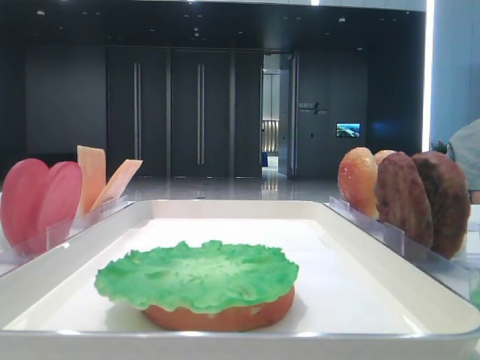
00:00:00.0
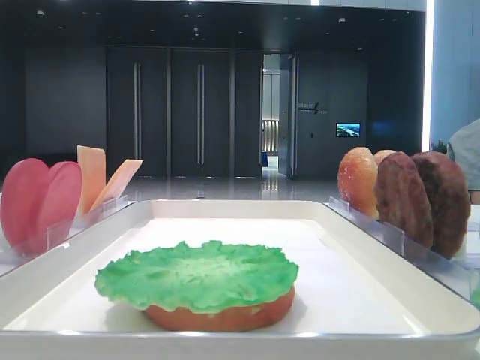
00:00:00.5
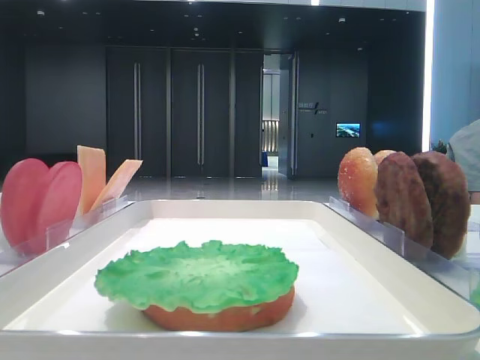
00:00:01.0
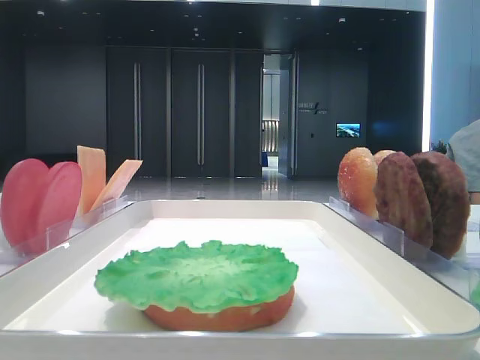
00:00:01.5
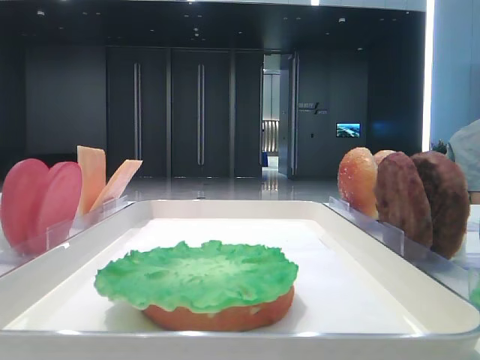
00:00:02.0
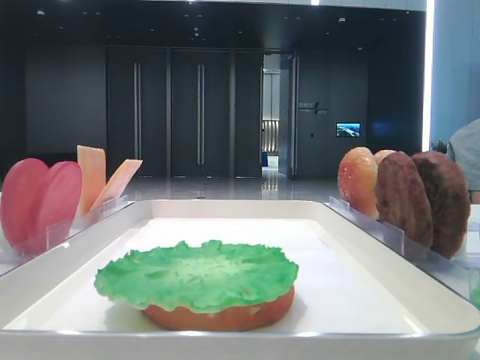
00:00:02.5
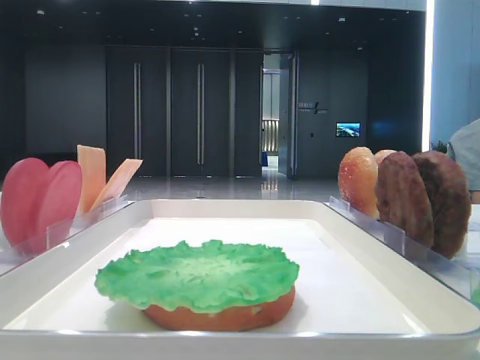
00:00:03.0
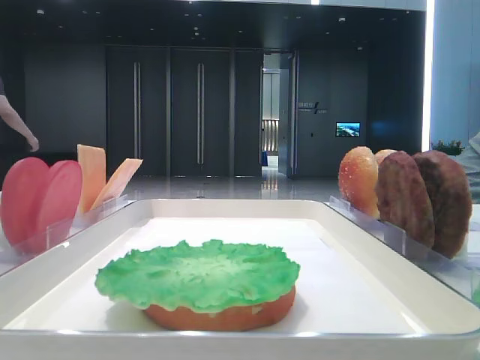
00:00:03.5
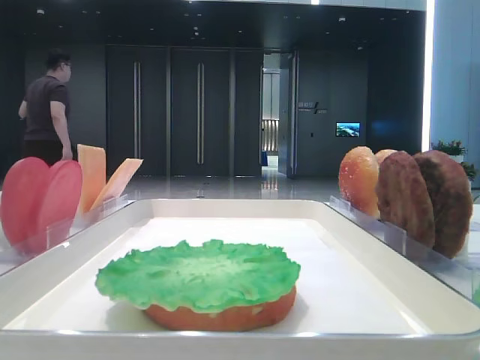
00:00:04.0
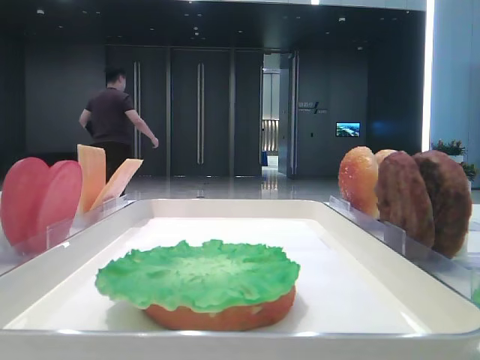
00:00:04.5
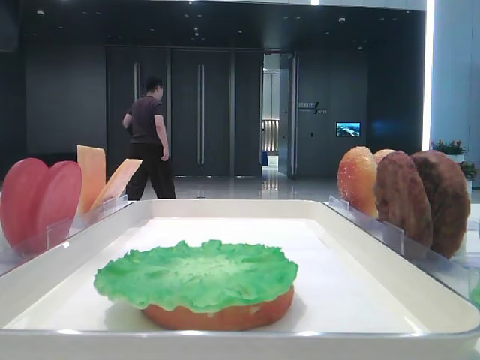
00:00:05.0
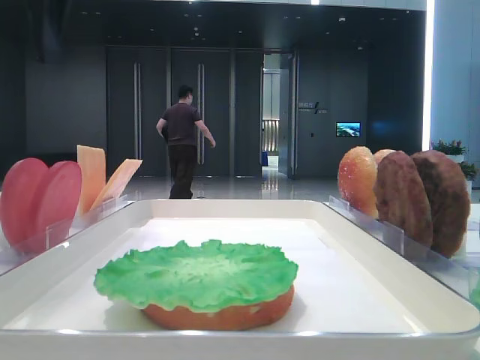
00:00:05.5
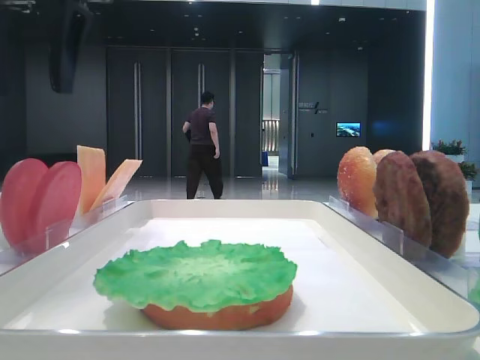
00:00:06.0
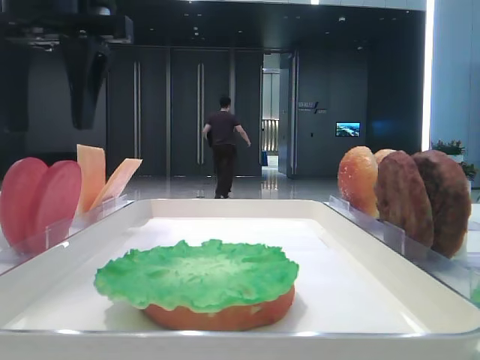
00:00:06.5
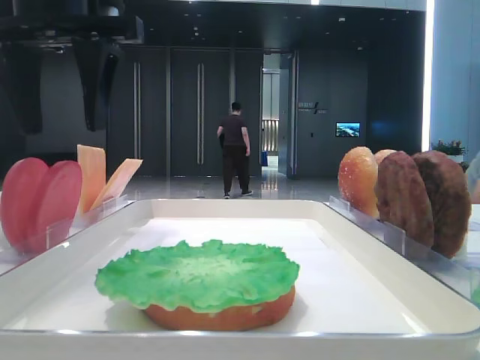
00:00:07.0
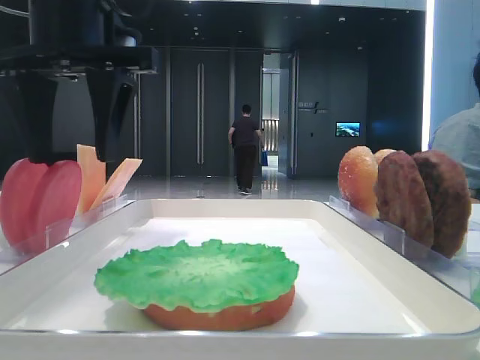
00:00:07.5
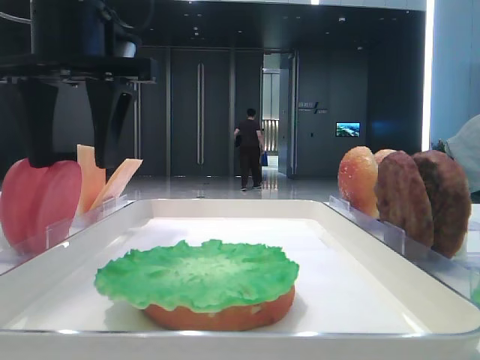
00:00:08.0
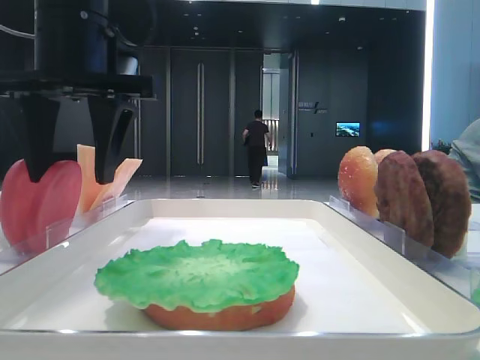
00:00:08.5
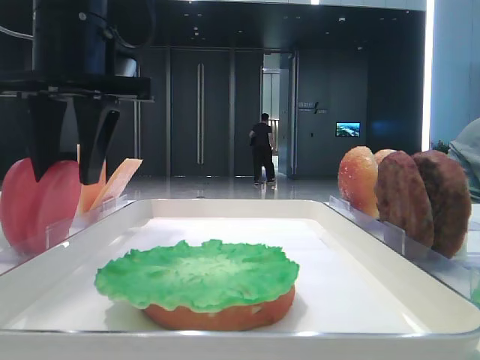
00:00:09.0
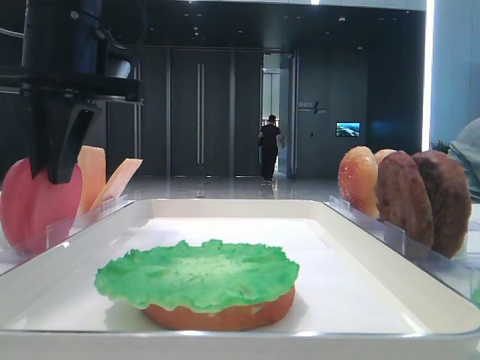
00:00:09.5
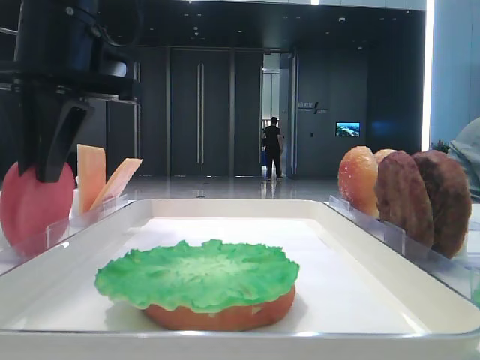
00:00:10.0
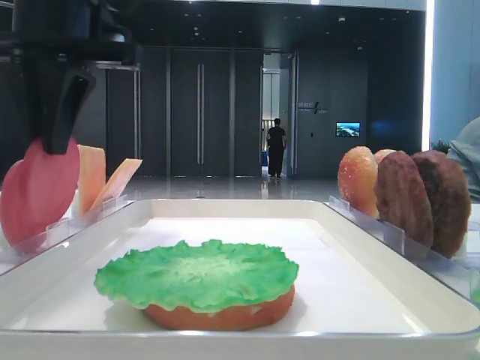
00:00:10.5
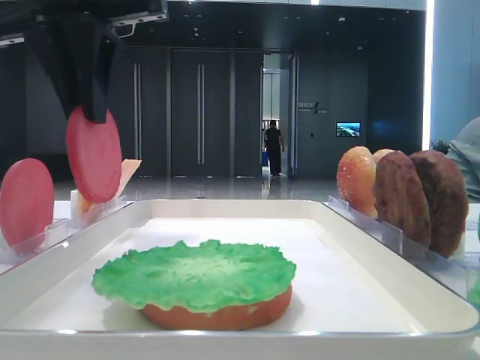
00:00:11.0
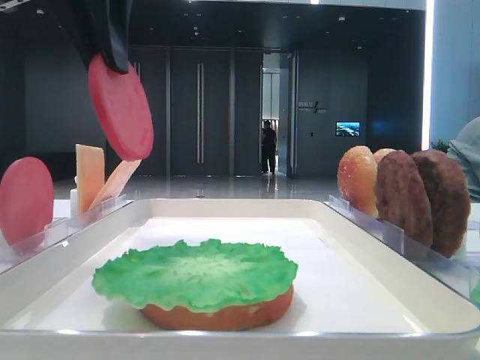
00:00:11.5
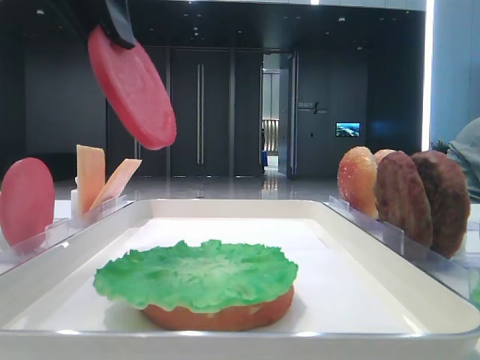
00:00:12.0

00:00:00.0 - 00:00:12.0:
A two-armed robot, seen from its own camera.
Step, 00:00:00.0 - 00:00:10.5: Pick up the tomato slice with the left hand.
00:00:02.0 - 00:00:04.0: The left gripper is displaced forward by some 25 cm.
00:00:04.0 - 00:00:06.0: The left gripper shifts approximately 15 cm to the right.
00:00:06.0 - 00:00:08.0: The left gripper is displaced downward by about 5 cm.
00:00:08.0 - 00:00:10.0: The left gripper closes its fingers.
00:00:10.0 - 00:00:12.0: The left gripper travels backward and upward by some 10 cm.

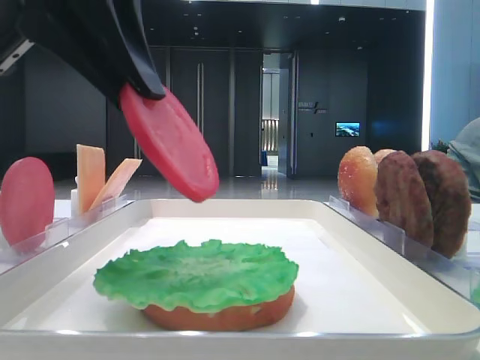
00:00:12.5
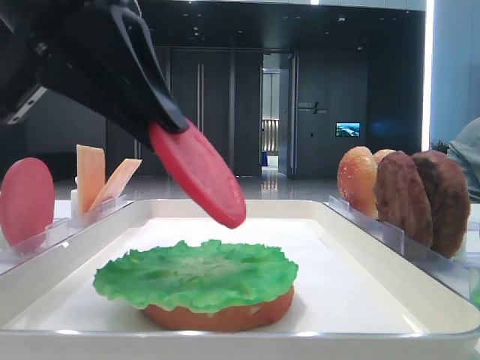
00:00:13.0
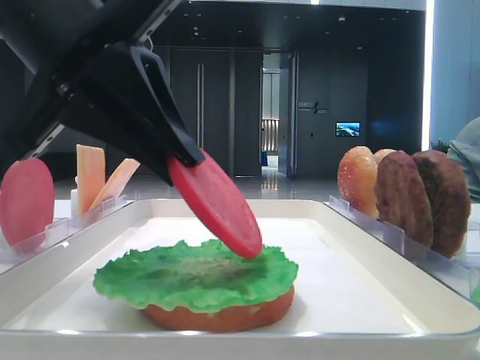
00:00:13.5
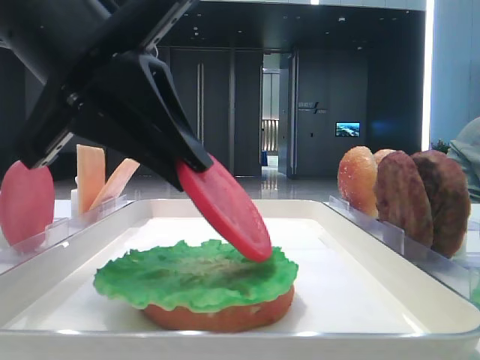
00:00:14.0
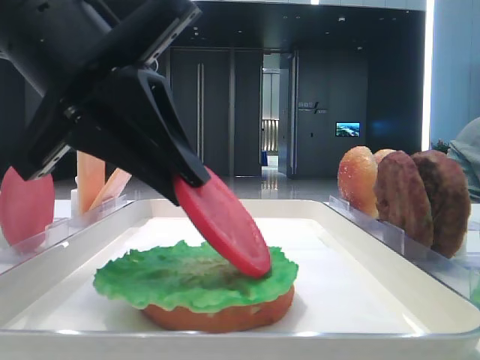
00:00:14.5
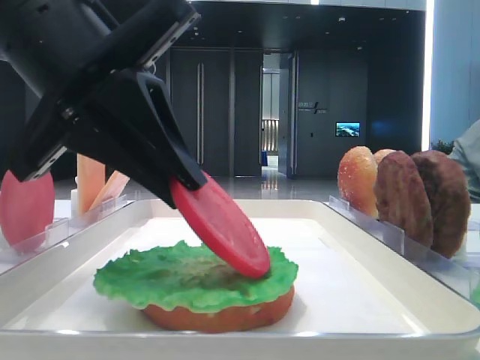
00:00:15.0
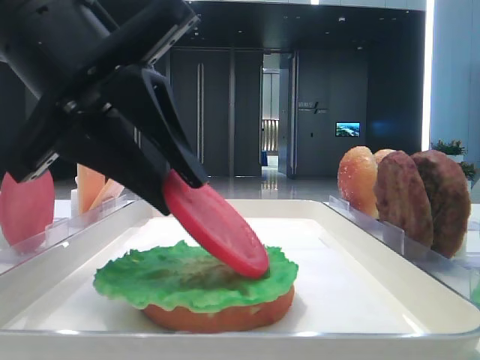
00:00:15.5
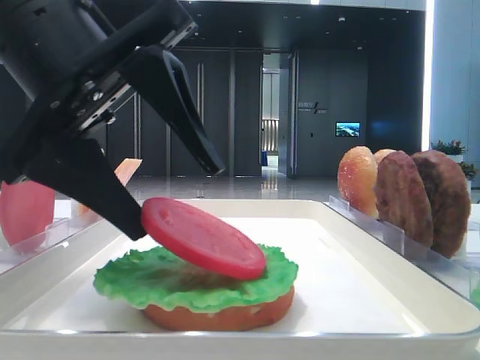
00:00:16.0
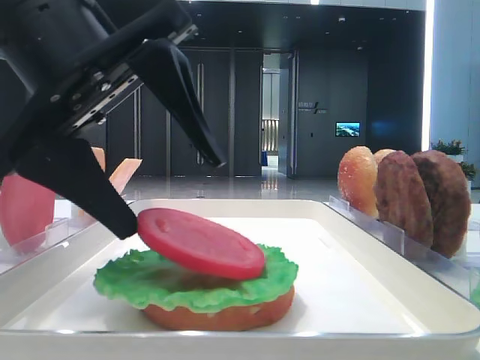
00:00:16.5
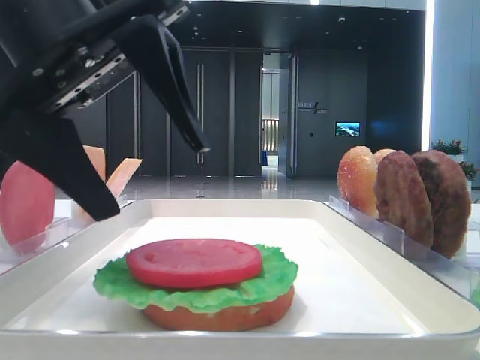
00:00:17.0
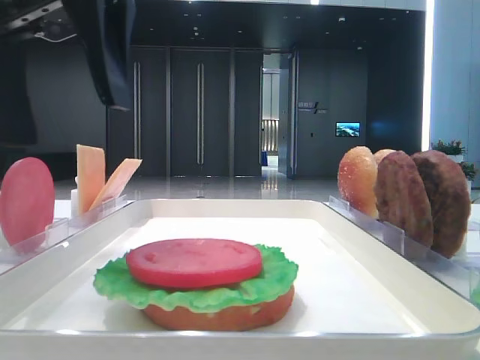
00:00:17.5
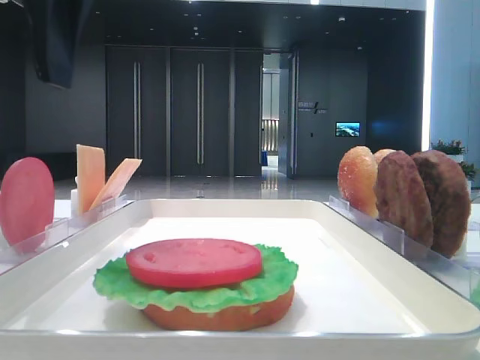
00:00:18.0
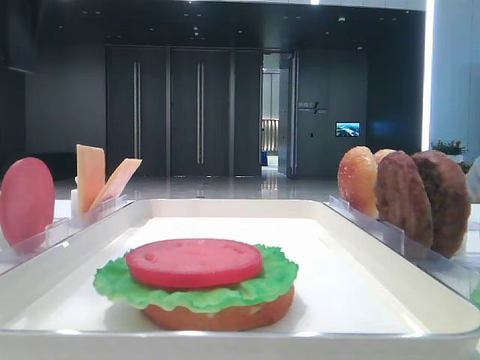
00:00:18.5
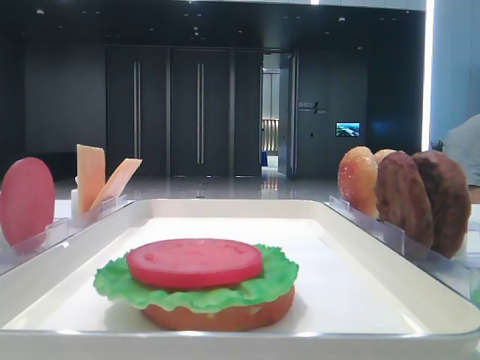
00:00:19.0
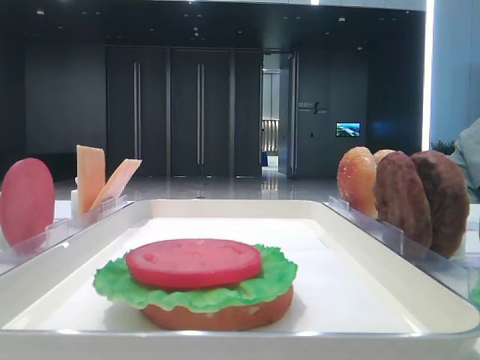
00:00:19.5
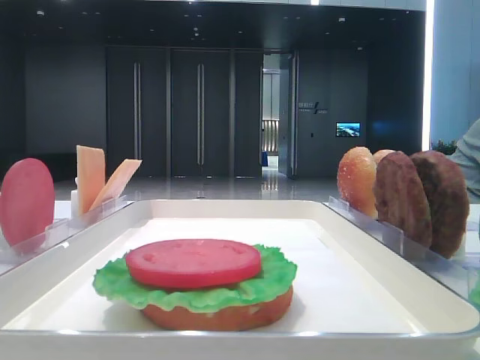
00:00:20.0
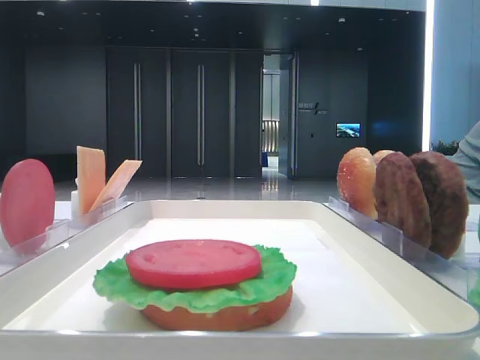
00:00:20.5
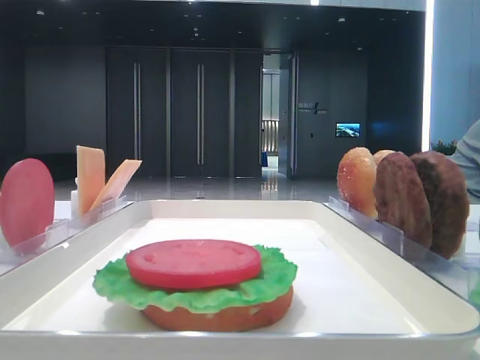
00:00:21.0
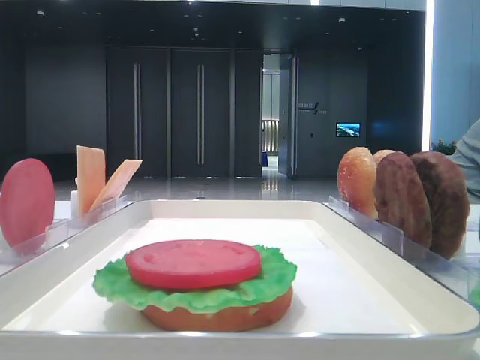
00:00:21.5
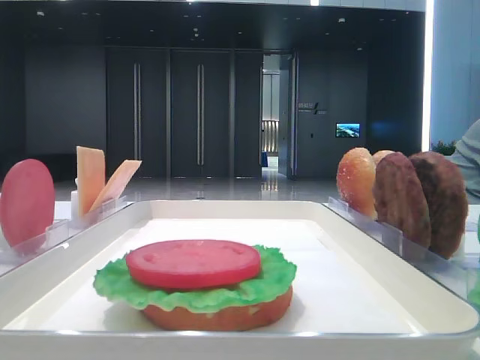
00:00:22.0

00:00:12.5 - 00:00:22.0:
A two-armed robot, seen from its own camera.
Step, 00:00:12.5 - 00:00:16.5: Place the tomato slice on the lettuce leaf with the left hand.
00:00:12.5 - 00:00:14.5: The left gripper goes approximately 5 cm downward.
00:00:14.5 - 00:00:16.5: The left gripper opens its fingers.
00:00:16.5 - 00:00:18.0: The left gripper travels upward by approximately 10 cm.
00:00:18.0 - 00:00:20.0: The left gripper moves to the left, upward and backward, roughly 20 cm.

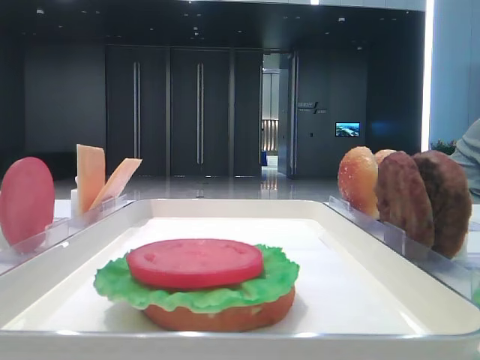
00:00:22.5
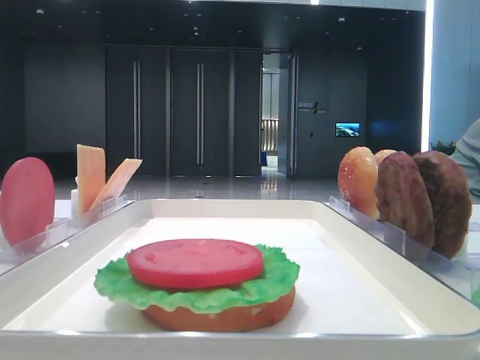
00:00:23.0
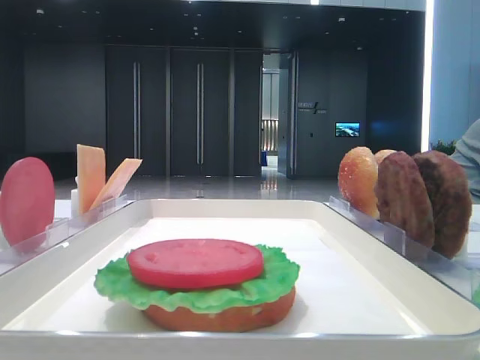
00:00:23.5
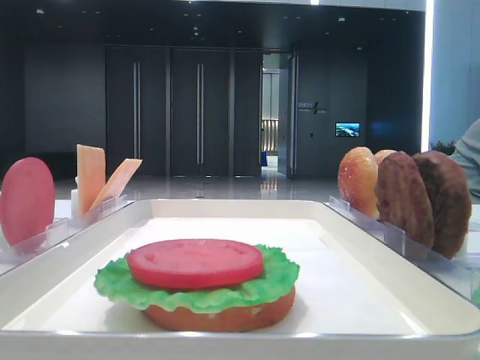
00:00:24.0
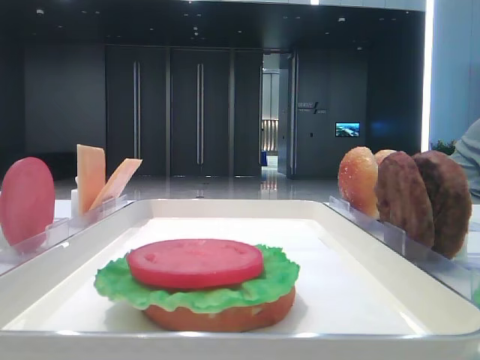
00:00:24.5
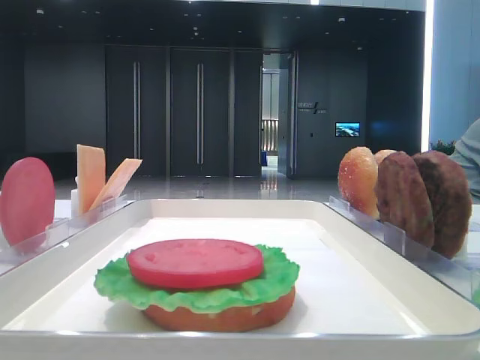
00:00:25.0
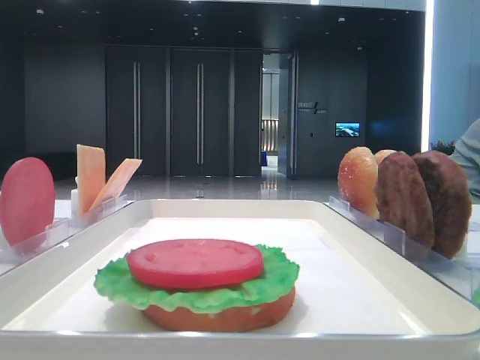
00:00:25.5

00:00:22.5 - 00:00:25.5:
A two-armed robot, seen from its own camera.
00:00:22.5 - 00:00:25.5: Both grippers stay put.

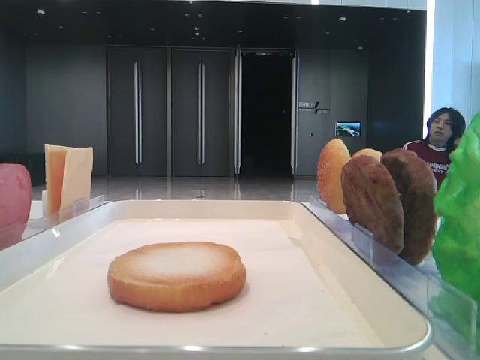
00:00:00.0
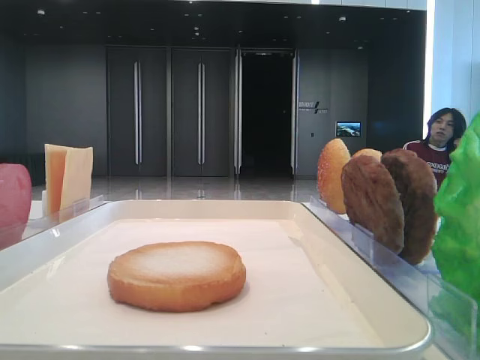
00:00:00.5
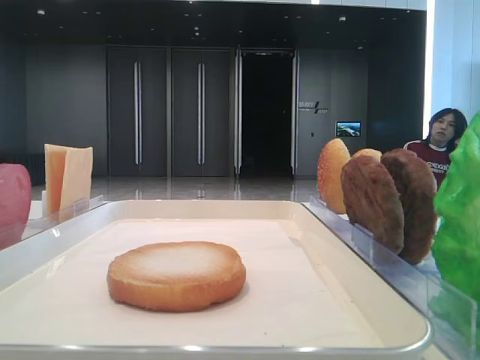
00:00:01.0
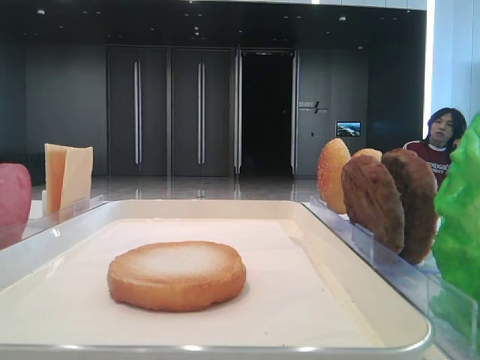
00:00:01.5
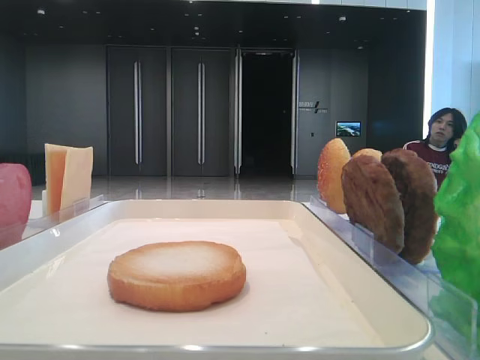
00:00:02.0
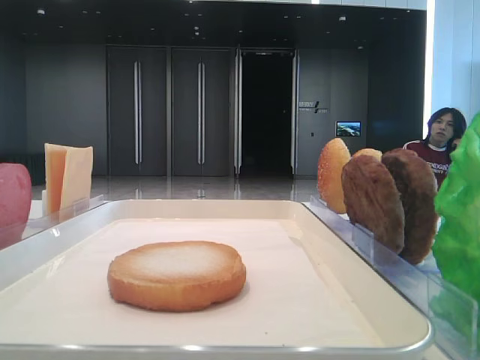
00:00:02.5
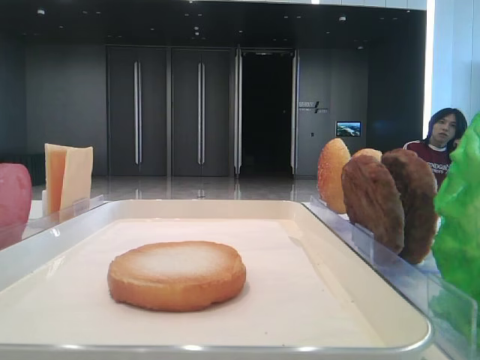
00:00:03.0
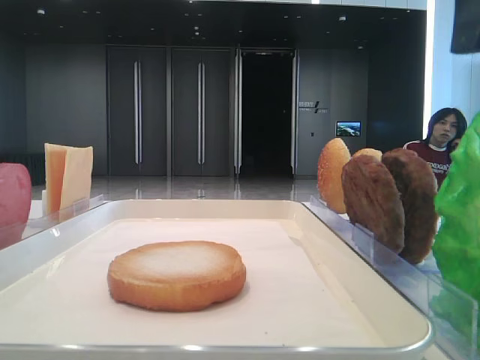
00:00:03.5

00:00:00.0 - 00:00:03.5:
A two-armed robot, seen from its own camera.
00:00:02.0 - 00:00:03.5: The right gripper travels to the left by roughly 10 cm.
